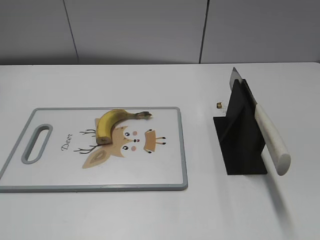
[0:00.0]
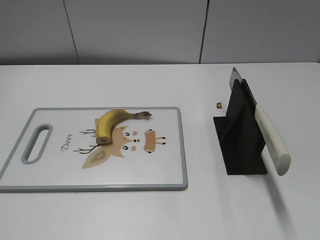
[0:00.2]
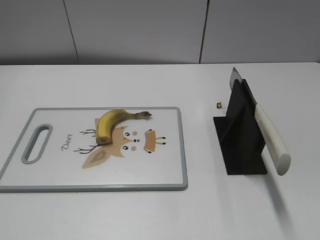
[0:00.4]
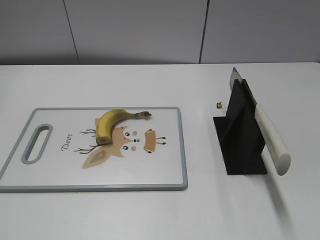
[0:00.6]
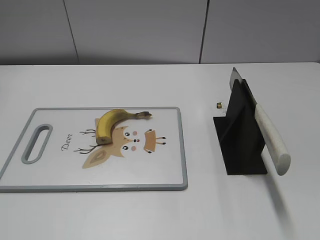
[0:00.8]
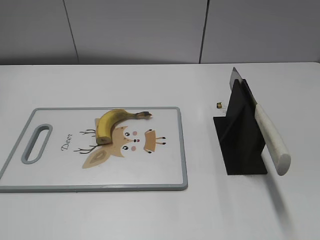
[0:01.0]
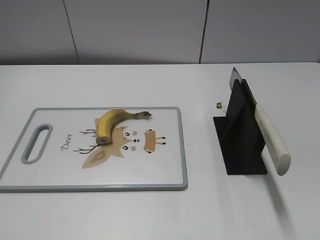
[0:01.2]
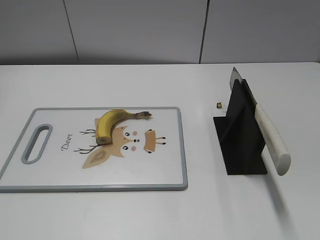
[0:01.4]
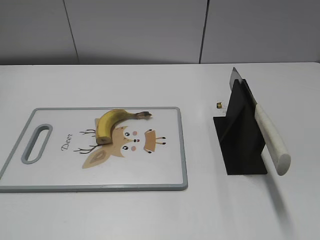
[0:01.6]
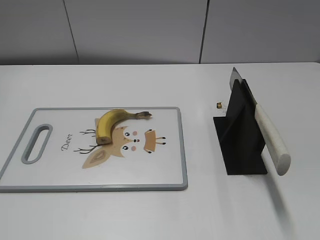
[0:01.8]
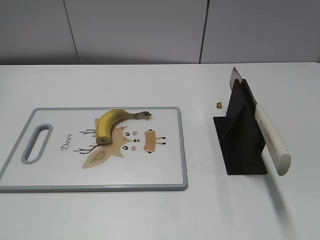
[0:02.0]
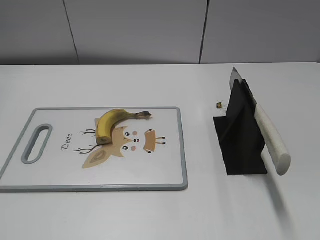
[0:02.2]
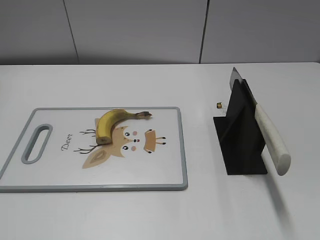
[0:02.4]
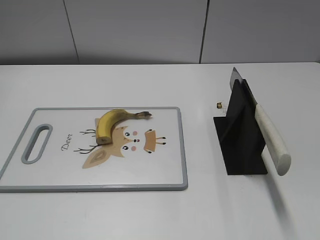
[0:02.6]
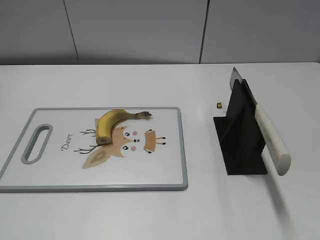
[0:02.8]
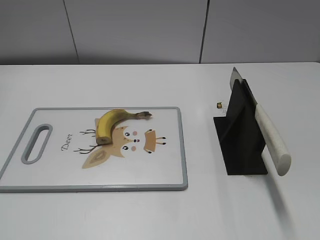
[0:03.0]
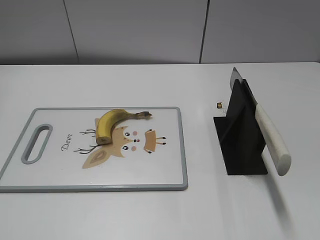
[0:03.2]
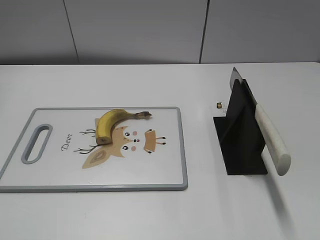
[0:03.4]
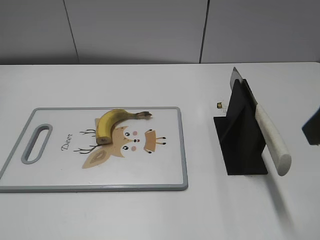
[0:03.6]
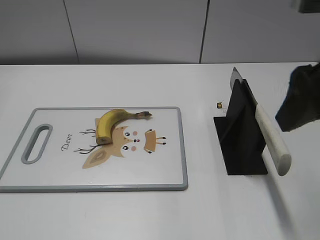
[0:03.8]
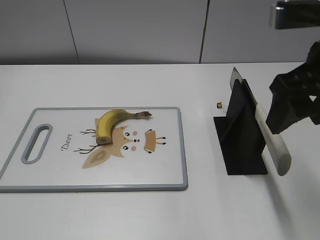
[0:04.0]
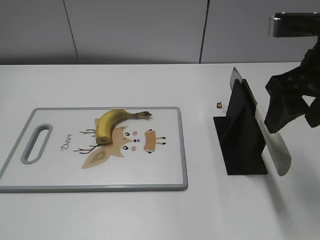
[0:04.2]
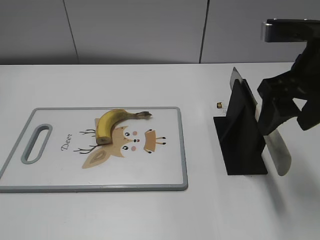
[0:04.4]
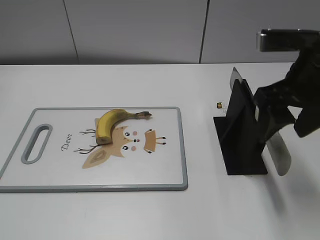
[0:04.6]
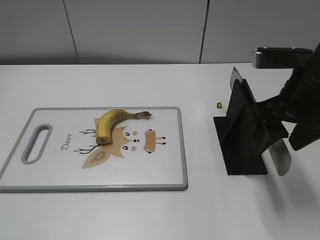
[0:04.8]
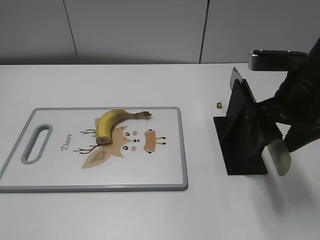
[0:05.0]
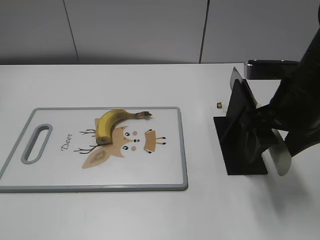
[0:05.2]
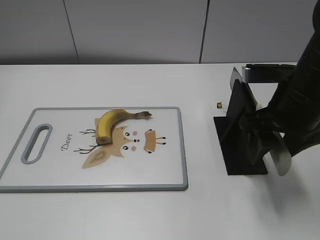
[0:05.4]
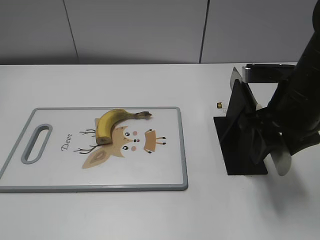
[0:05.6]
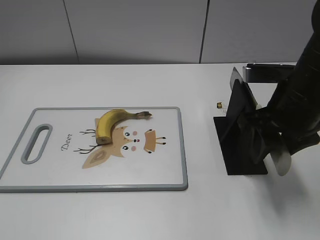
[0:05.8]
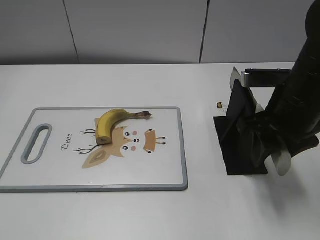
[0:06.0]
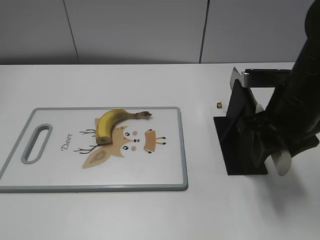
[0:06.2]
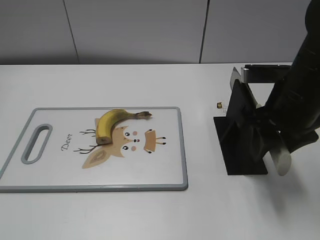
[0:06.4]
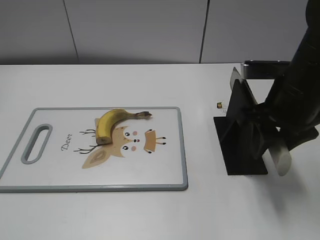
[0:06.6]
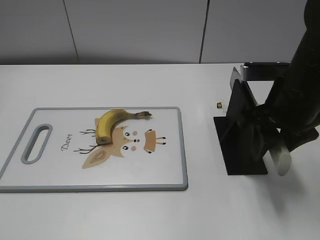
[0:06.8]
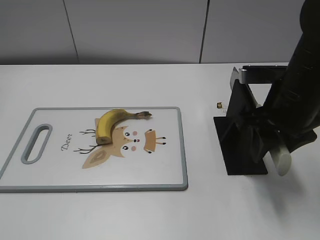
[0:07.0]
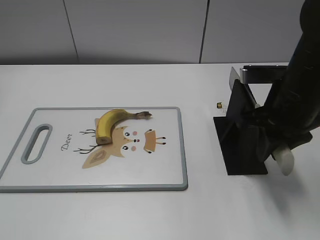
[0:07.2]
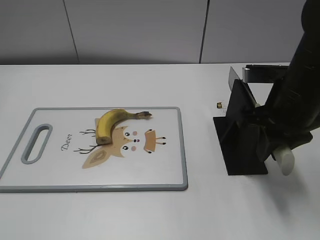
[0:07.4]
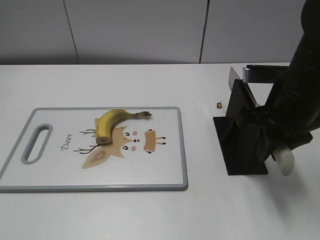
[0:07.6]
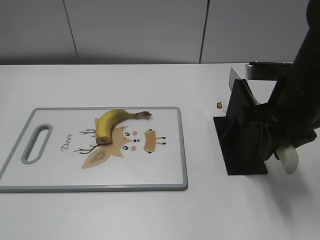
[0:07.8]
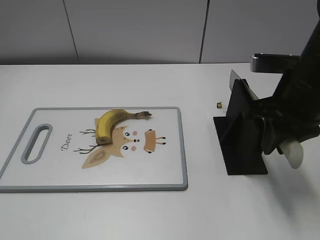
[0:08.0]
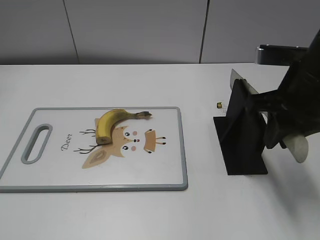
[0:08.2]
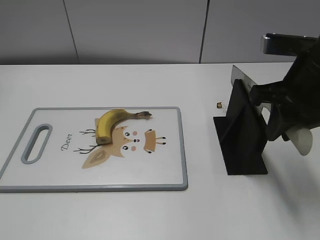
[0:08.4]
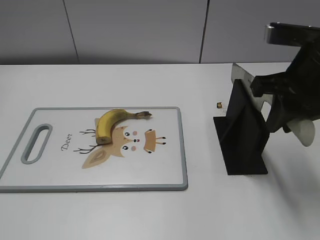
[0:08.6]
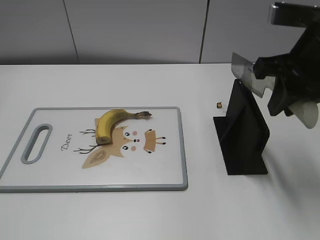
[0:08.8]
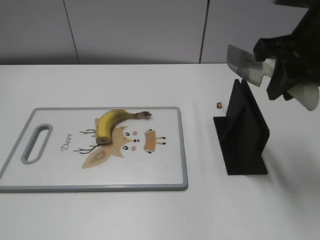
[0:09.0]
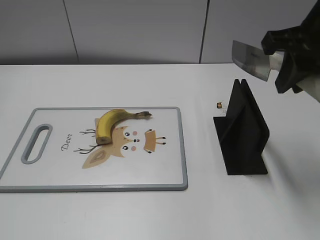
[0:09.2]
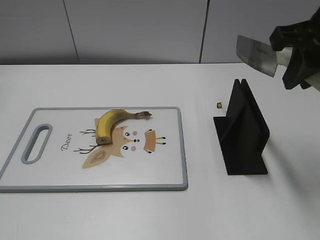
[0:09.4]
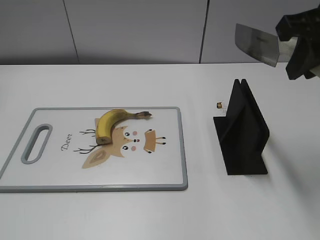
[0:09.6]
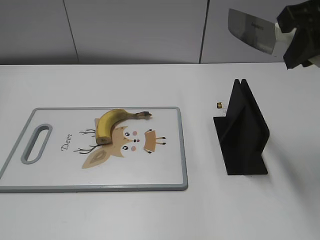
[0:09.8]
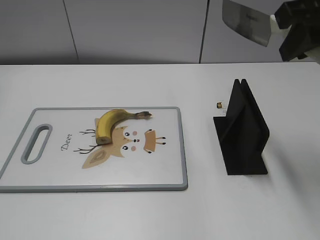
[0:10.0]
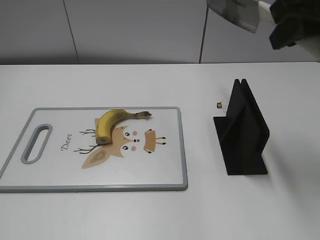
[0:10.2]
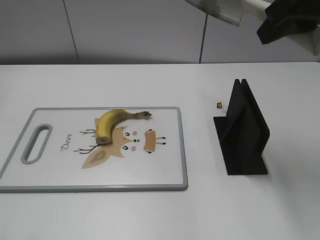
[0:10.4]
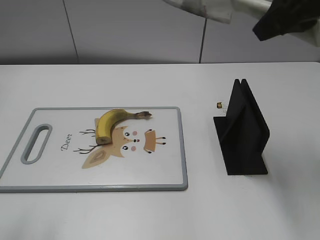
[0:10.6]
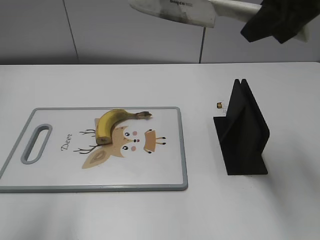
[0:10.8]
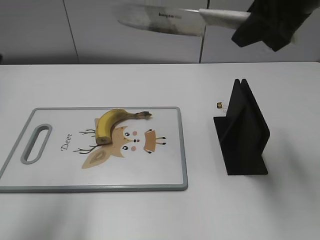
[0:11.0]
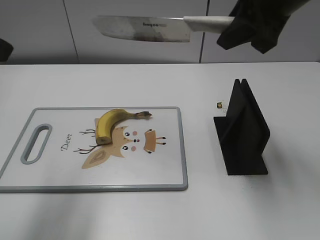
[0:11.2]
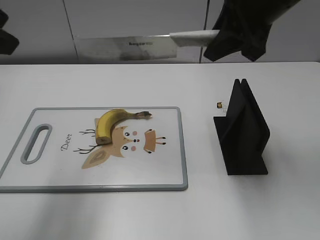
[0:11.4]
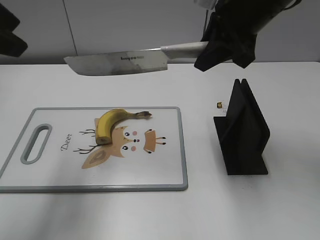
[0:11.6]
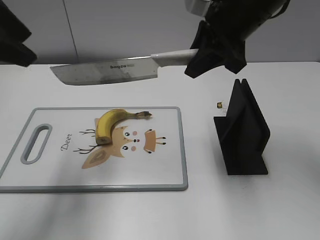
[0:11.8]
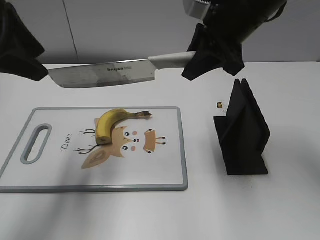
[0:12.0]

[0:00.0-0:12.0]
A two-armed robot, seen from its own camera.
Task of the whole recording: cut banana.
Step, 0:00.0 to 0:09.2: Grab the knife handle with your right hand.
0:03.0 to 0:04.4: The right gripper travels forward and to the left by approximately 20 cm.
0:04.4 to 0:06.0: The right gripper is displaced downward by about 5 cm, and closes up.
0:06.0 to 0:07.6: The right gripper closes.
0:07.6 to 0:09.0: The right gripper travels upward by roughly 10 cm.
0:09.0 to 0:10.4: The right gripper is displaced upward by about 5 cm.
0:10.4 to 0:12.0: The left gripper goes about 20 cm forward, while the right gripper is displaced forward, downward and to the left by approximately 15 cm.

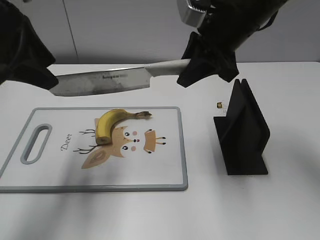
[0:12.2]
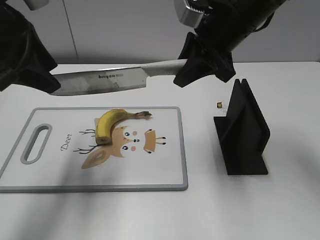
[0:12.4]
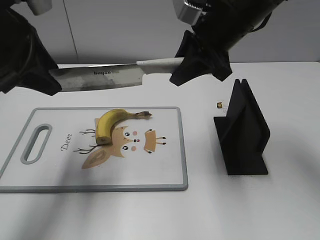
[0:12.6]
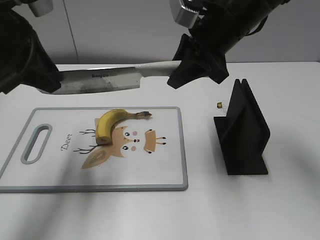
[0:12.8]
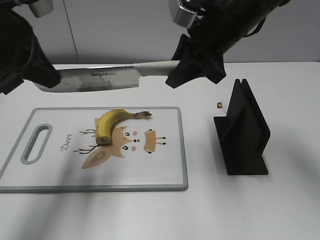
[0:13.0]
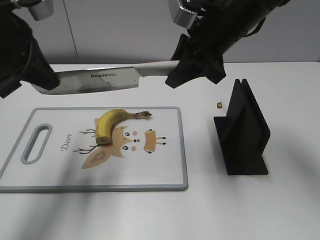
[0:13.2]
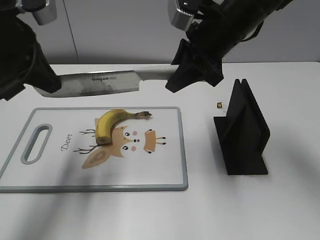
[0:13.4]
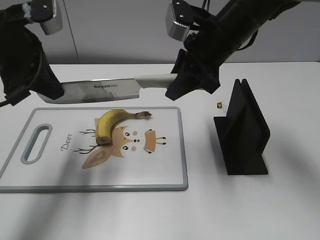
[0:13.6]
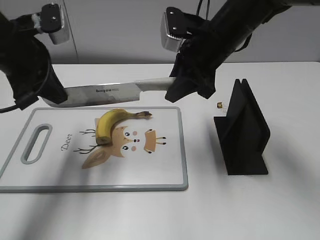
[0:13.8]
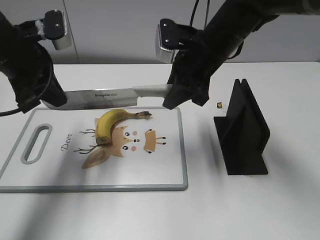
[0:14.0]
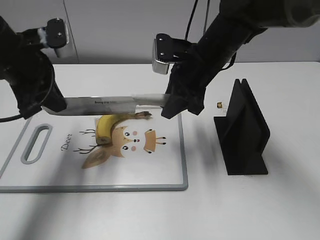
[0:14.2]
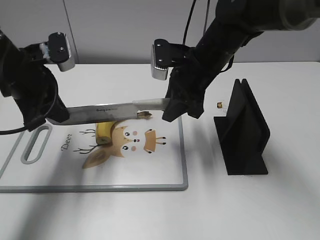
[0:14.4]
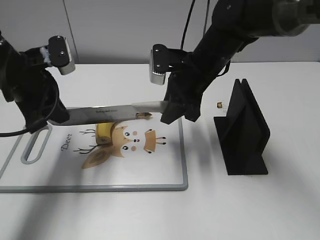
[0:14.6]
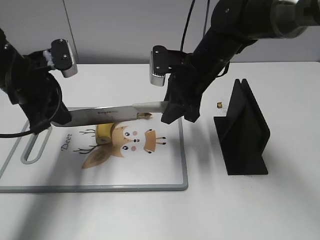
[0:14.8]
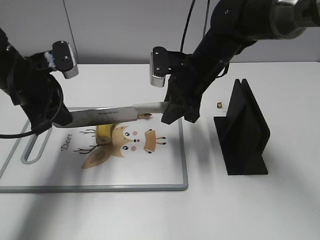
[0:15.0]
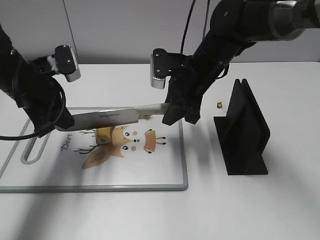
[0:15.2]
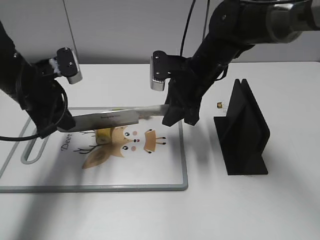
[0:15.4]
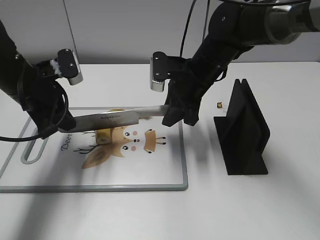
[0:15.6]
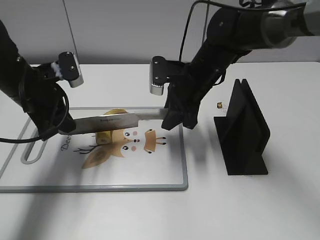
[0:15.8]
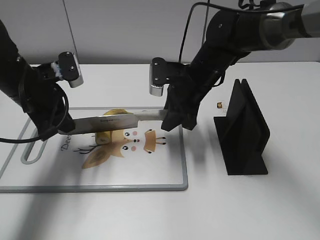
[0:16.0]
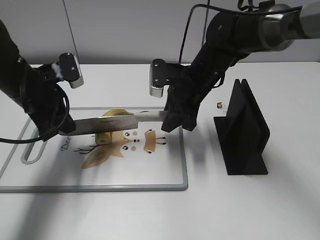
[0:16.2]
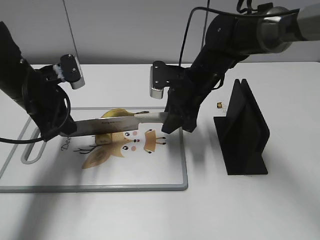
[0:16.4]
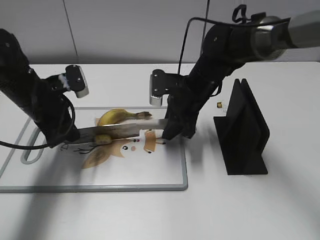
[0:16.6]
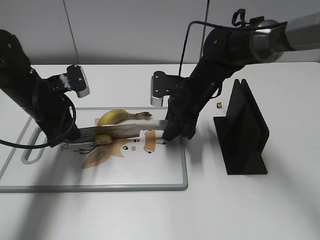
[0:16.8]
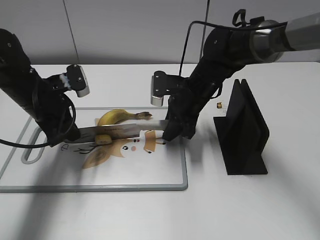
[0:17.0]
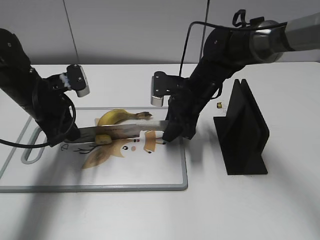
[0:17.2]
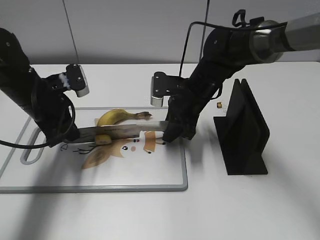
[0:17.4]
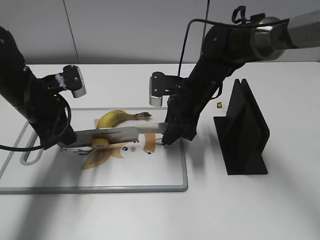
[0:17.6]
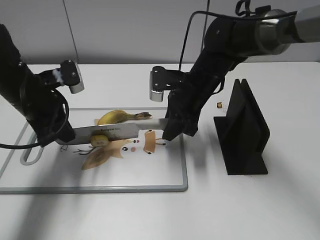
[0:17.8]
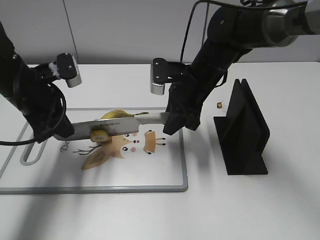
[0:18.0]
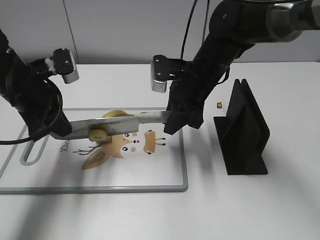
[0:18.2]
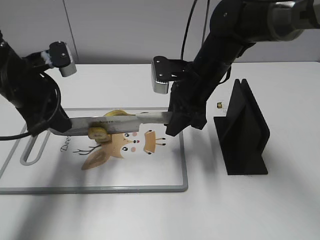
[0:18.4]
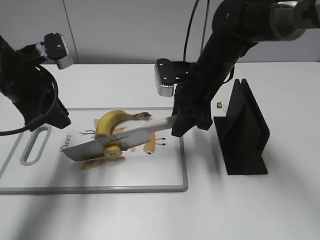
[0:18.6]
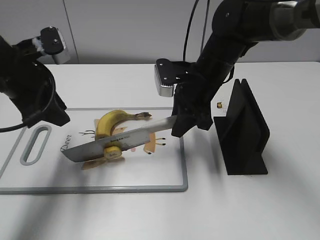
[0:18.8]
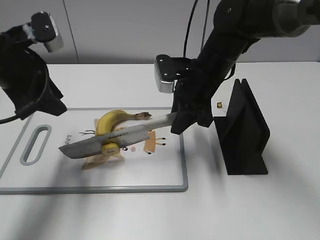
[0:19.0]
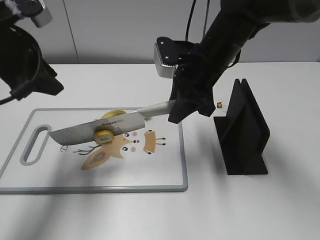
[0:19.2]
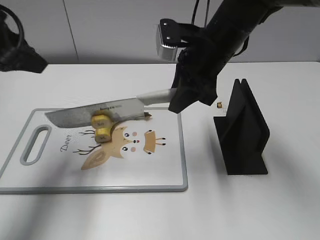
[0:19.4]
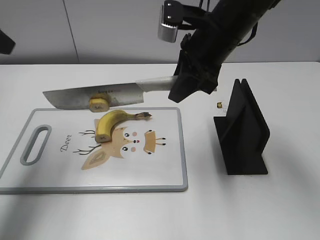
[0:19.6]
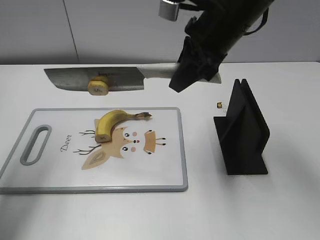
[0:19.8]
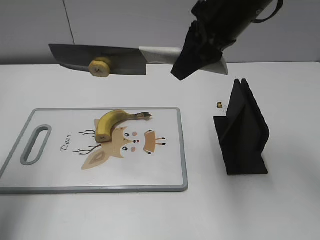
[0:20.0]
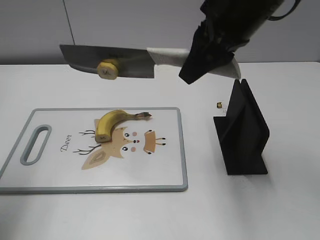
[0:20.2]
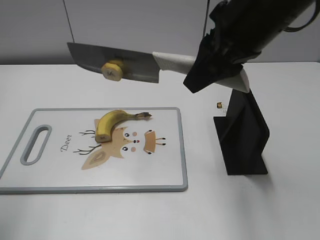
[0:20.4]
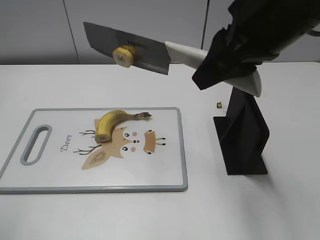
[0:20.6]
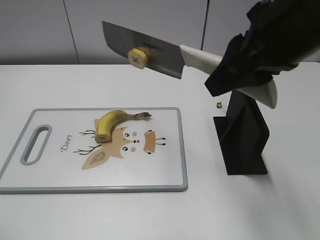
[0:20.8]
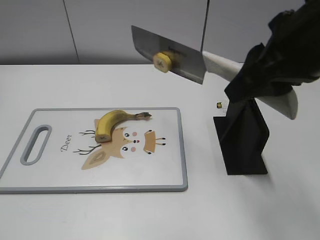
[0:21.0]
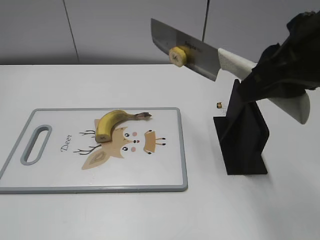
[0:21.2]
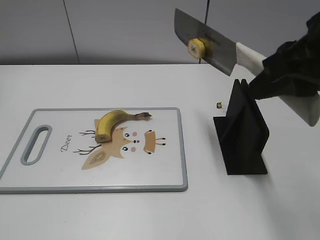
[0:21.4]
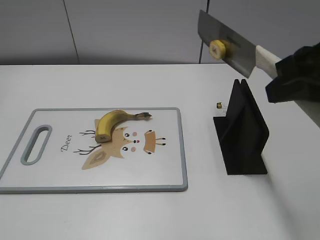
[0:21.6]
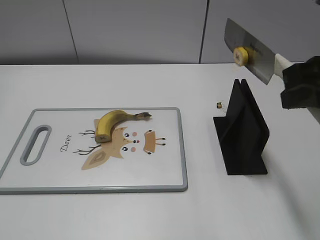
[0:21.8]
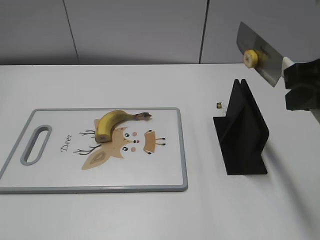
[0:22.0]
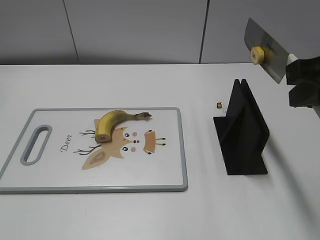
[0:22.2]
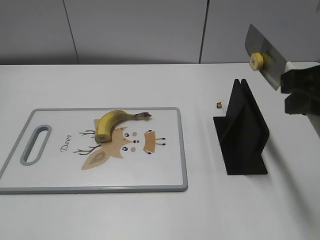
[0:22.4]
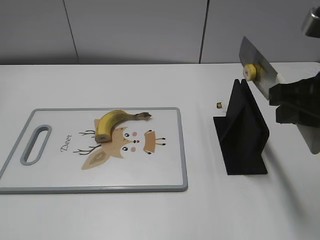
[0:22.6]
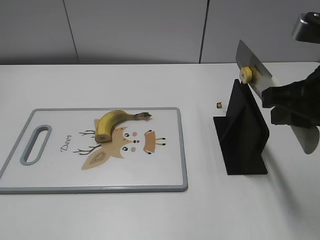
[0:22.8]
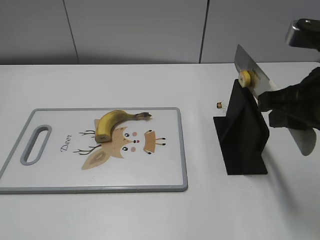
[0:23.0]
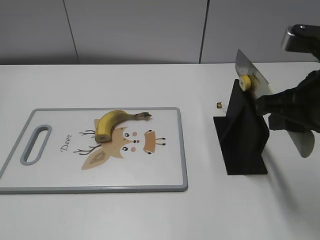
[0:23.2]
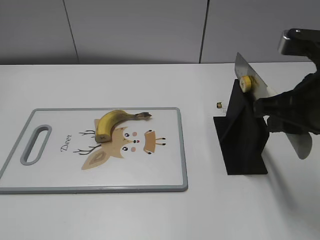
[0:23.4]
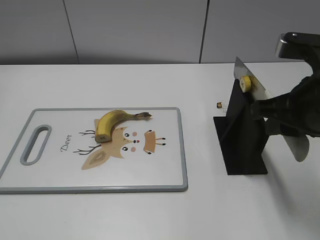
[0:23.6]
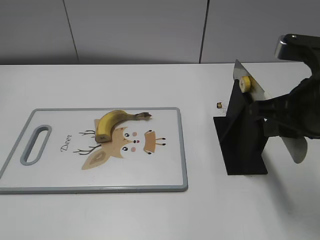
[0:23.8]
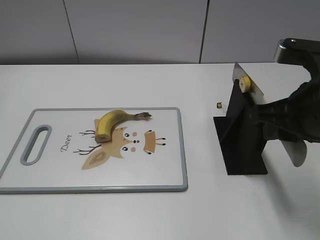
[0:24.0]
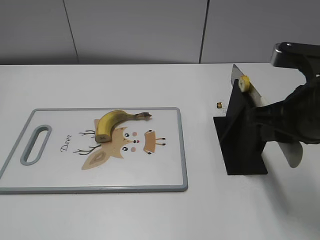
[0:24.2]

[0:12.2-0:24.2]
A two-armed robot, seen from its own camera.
Task of the whole recording: cut banana.
Step, 0:12.2 to 0:16.0: Lift the knife with your right hand.
Step, 0:16.4 to 0:20.8: Cut the banana with your right hand.
Step, 0:21.2 to 0:23.0: Lift the knife with your right hand.
0:12.2 to 0:13.8: The left gripper travels downward by approximately 5 cm, and closes its fingers.
0:13.8 to 0:15.2: Both grippers move downward, approximately 5 cm.
0:15.2 to 0:16.6: The right gripper shifts approximately 5 cm downward.
0:16.6 to 0:18.2: The left gripper moves upward, about 5 cm. Meanwhile the right gripper shifts by roughly 5 cm.
0:18.2 to 0:19.8: The left gripper is displaced upward and to the left by some 20 cm, and opens up; the right gripper travels upward by approximately 15 cm.
0:19.8 to 0:21.2: The right gripper moves backward and to the right, approximately 15 cm, while the left gripper is displaced backward by roughly 25 cm.
0:21.2 to 0:22.6: The right gripper travels downward by approximately 5 cm.
0:22.6 to 0:24.2: The grippers make only small movements.
